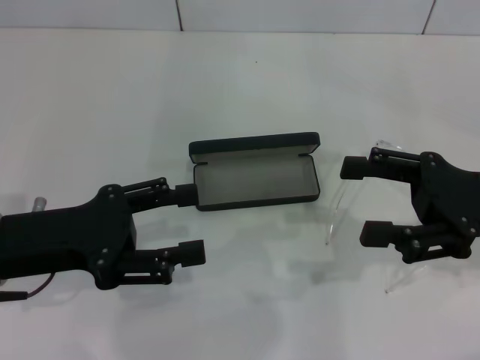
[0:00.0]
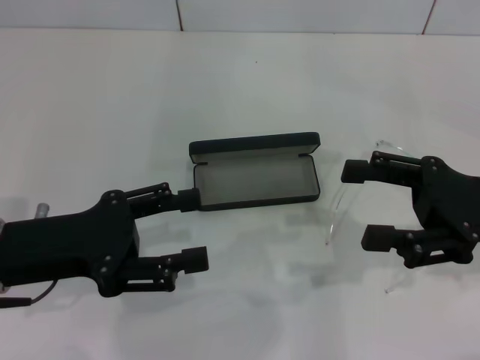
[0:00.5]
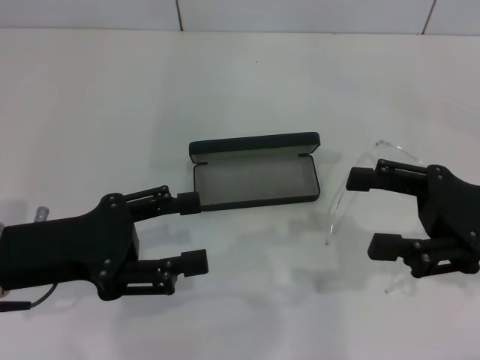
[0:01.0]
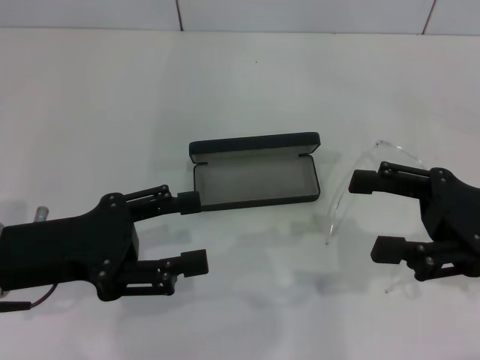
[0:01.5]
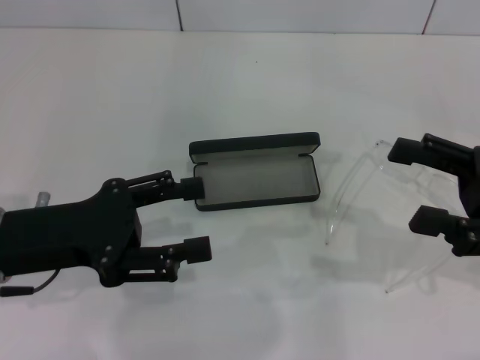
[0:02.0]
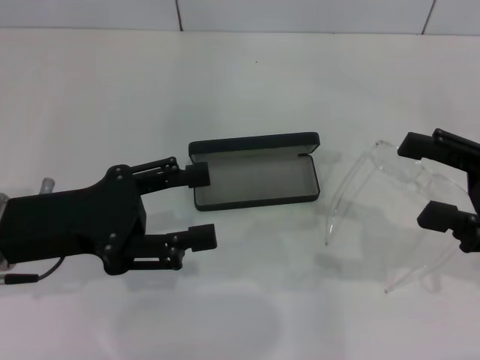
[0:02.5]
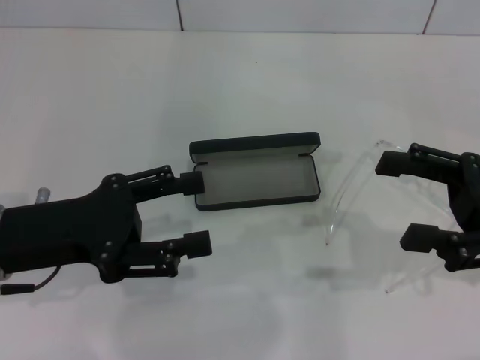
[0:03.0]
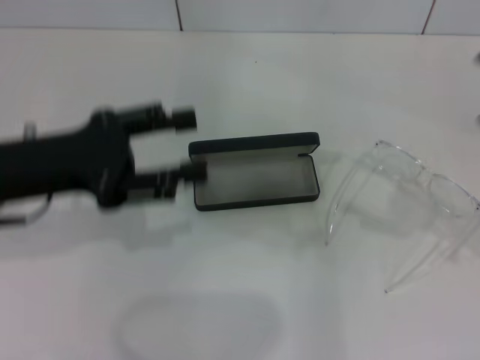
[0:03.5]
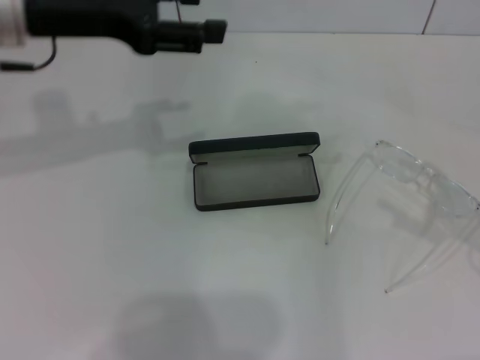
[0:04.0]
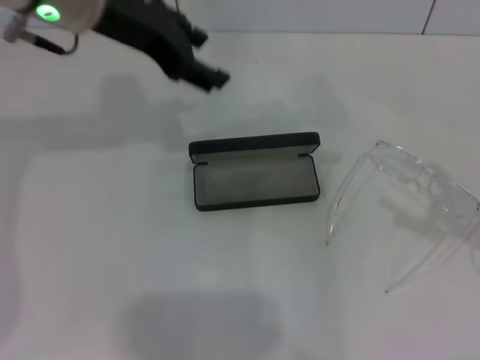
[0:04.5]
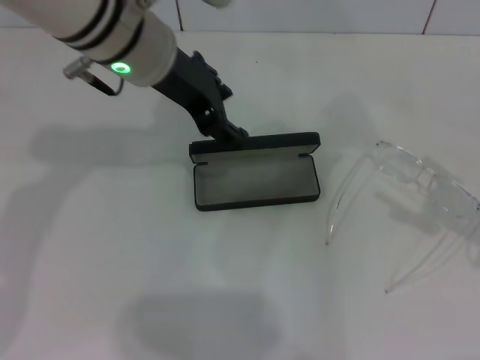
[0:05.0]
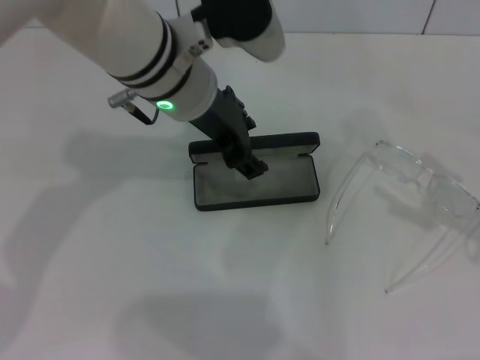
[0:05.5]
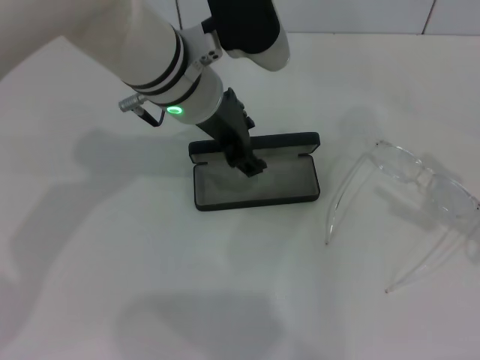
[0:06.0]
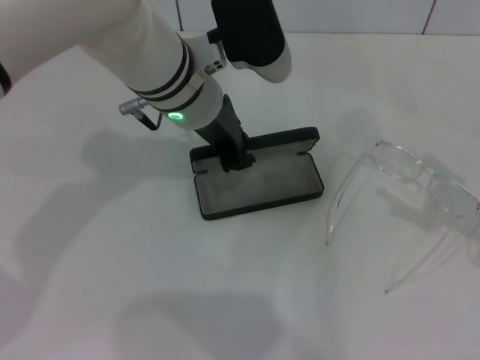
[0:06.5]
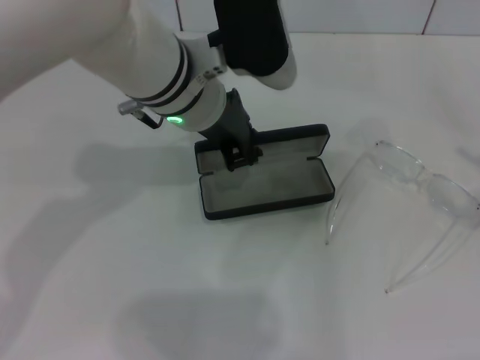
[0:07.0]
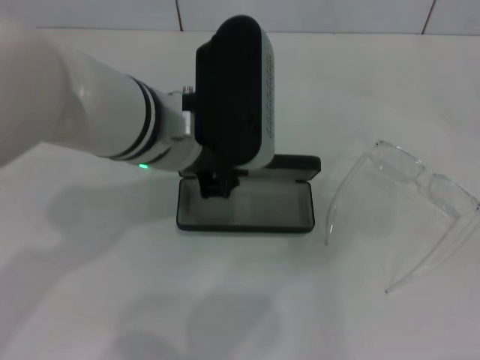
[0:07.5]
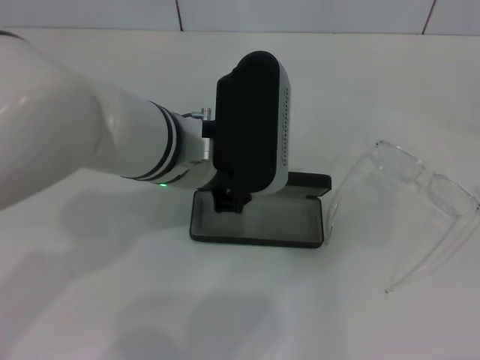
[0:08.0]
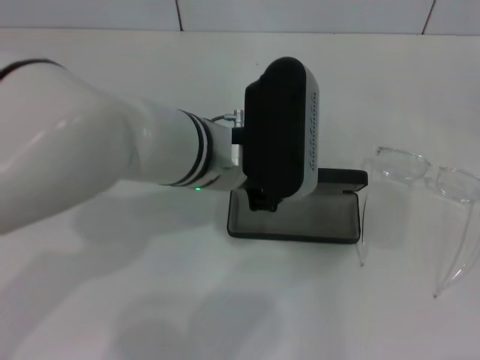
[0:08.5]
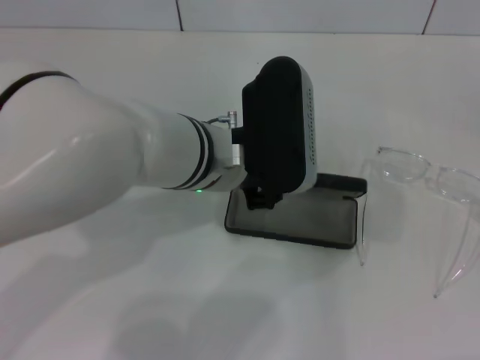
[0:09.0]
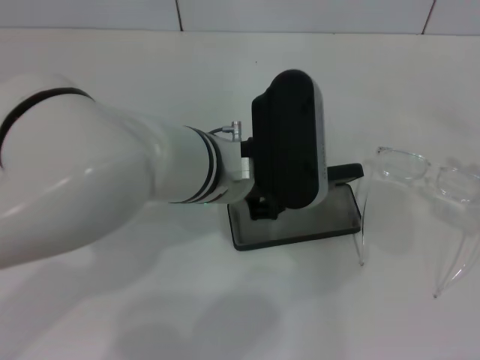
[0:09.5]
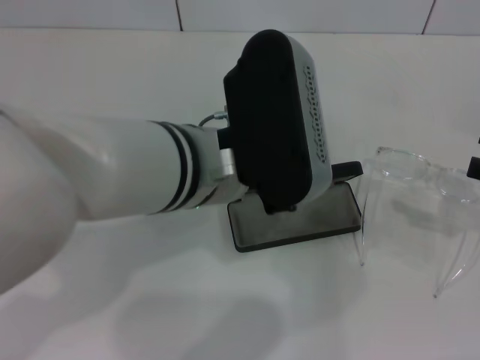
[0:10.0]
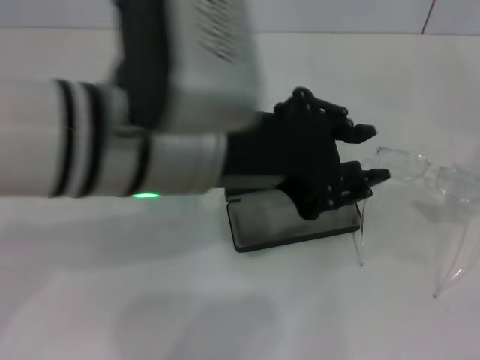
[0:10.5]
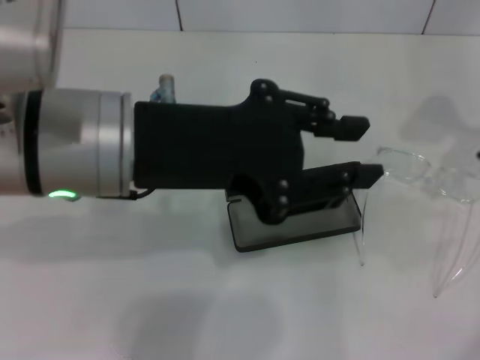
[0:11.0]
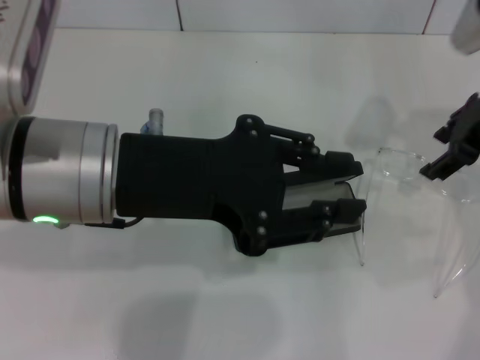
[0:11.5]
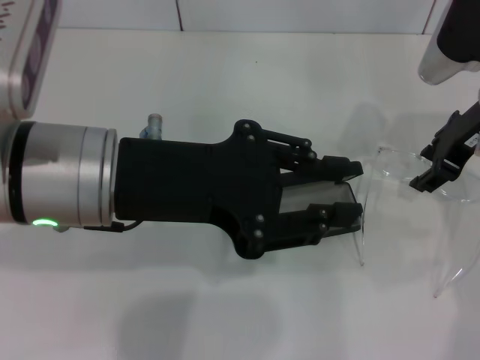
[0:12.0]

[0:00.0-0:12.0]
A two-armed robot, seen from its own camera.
Step, 0:00.0 to 0:06.5: Grab the glasses case with your left hand.
Step, 0:07.0 to 0:09.5: Place the glasses case in the center of the table with your left hand.
0:00.0 to 0:02.0: There are only small adjustments of the grippers.
0:02.0 to 0:04.0: The left gripper goes roughly 15 cm forward and upward. The right gripper is displaced to the right by some 5 cm.
0:04.0 to 0:06.0: The left gripper goes some 15 cm to the right and downward.
0:06.0 to 0:08.0: The left gripper heads backward, covering roughly 5 cm, and closes its fingers, while the right gripper travels backward and to the right by roughly 10 cm.
0:08.0 to 0:10.0: The right gripper heads forward, covering roughly 10 cm.
0:10.0 to 0:12.0: The right gripper heads to the left and forward, covering approximately 20 cm, while the left gripper is displaced to the left by about 10 cm.

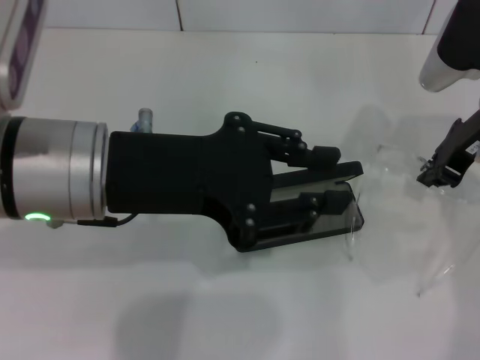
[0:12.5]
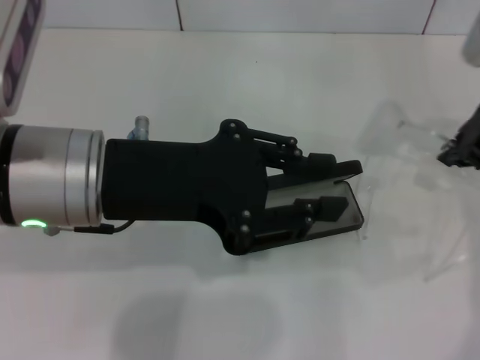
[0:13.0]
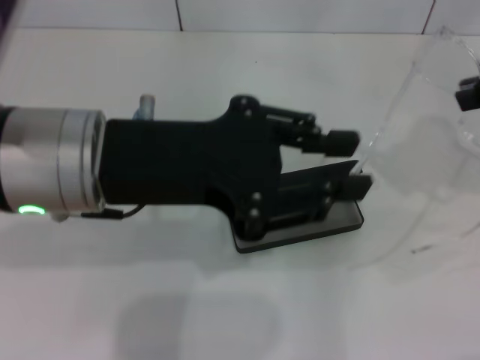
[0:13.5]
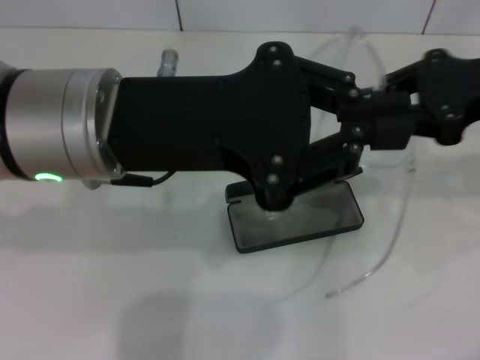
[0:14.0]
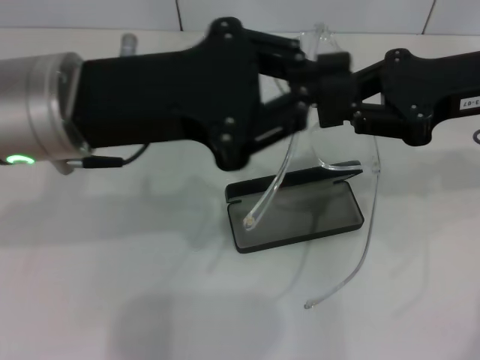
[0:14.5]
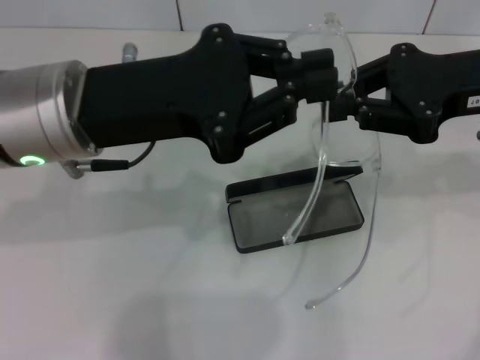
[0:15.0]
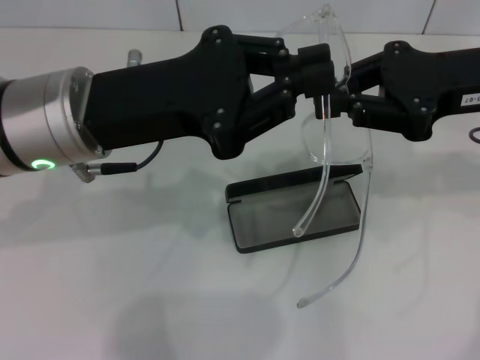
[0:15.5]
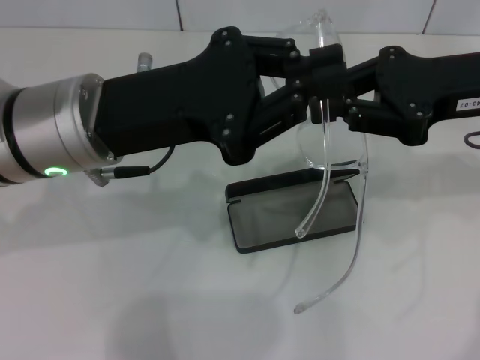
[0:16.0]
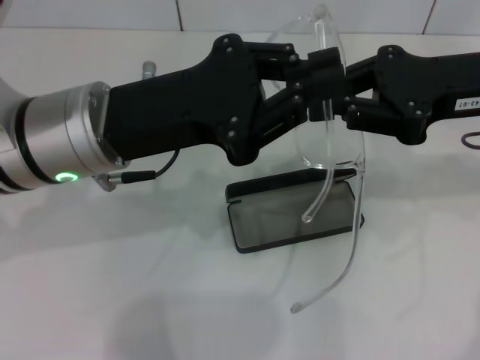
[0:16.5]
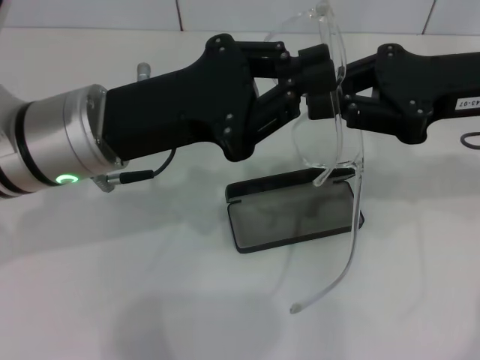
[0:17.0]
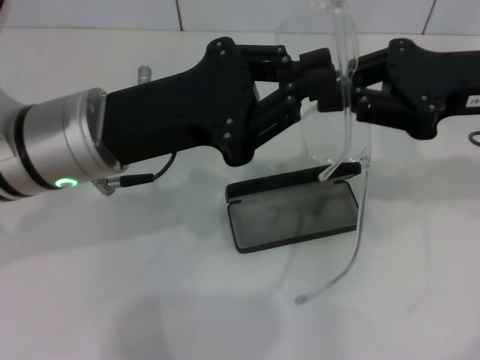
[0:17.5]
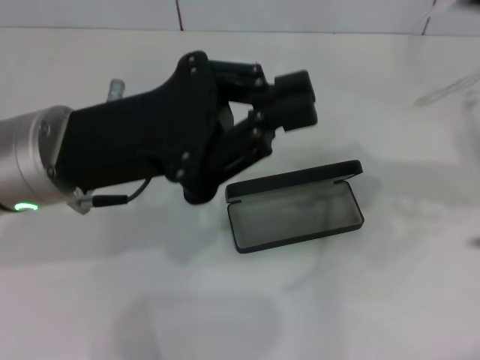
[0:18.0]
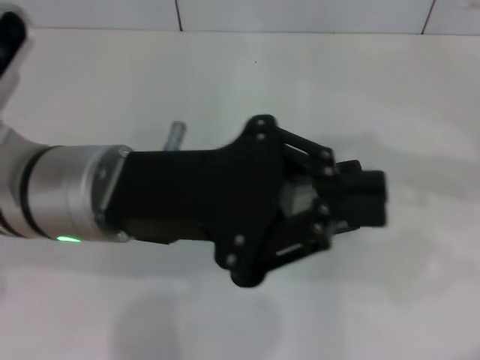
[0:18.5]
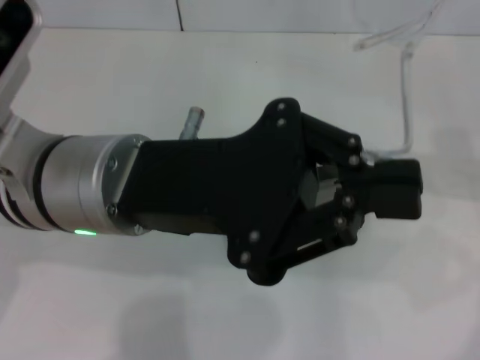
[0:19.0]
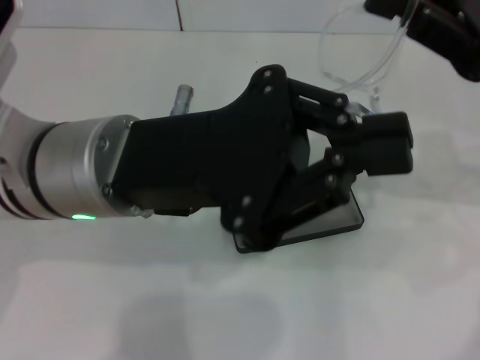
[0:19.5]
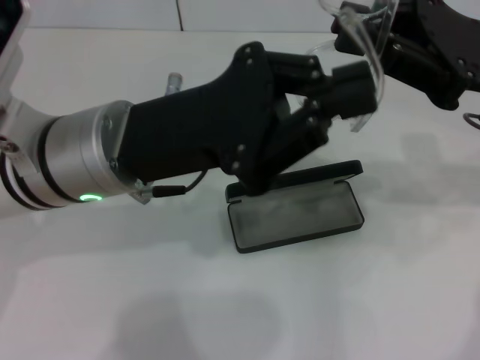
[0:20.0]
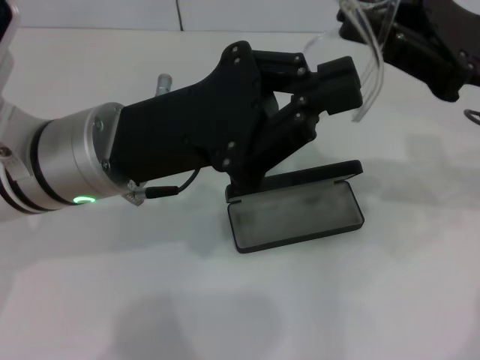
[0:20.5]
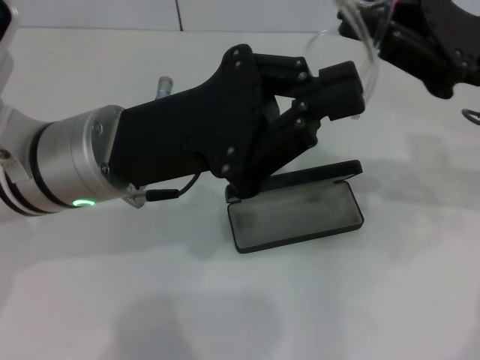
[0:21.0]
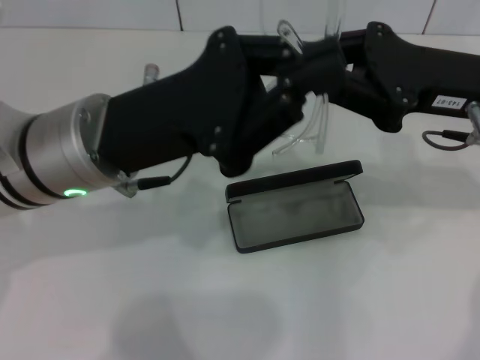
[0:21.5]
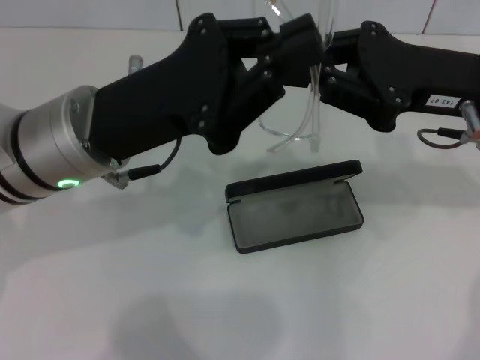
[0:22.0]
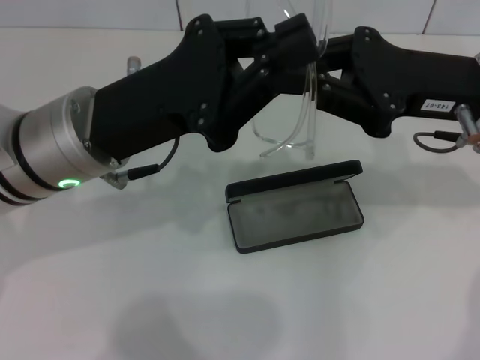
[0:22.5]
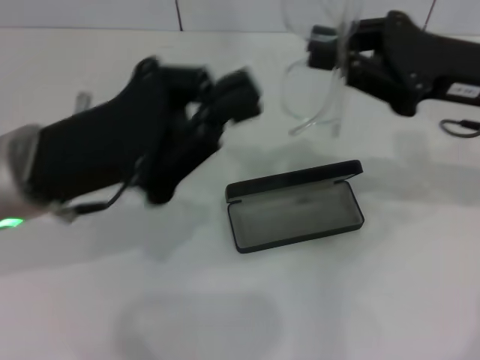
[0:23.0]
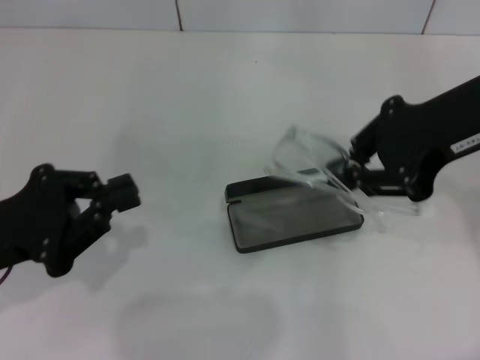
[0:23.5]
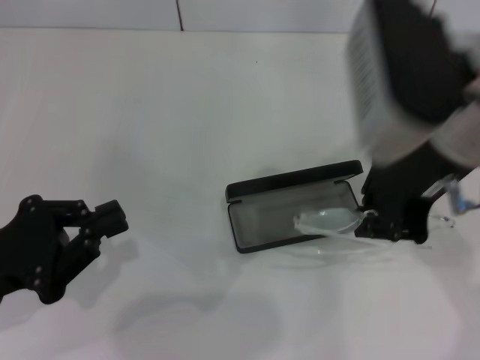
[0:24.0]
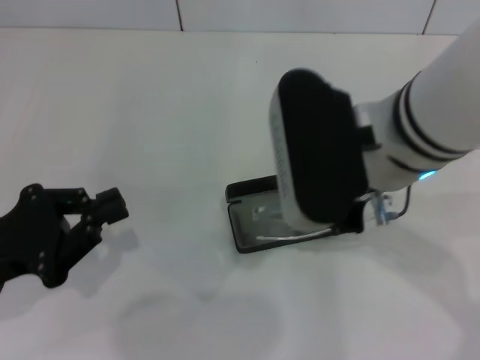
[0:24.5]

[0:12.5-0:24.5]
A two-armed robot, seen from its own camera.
Step, 0:13.0 to 0:22.5: Lift the glasses with your right hand.
0:12.5 to 0:14.5: The left gripper closes up, while the right gripper moves upward and backward, roughly 10 cm.
0:14.5 to 0:16.5: The left gripper ends up about 5 cm from where it was.
0:16.5 to 0:18.5: The right gripper shifts roughly 5 cm to the right.
0:18.5 to 0:20.5: The right gripper heads to the left, covering roughly 5 cm.
0:22.5 to 0:24.5: The left gripper heads to the left, backward and downward, covering about 20 cm. Meanwhile the right gripper goes roughly 10 cm to the left.

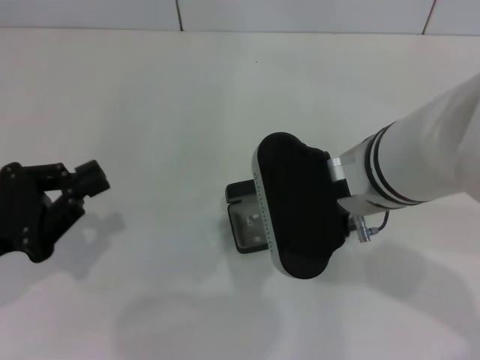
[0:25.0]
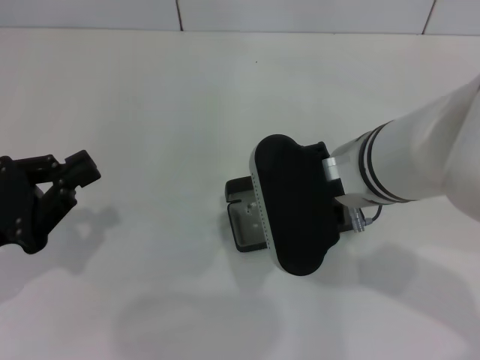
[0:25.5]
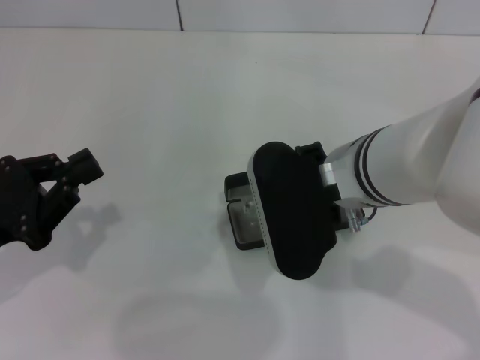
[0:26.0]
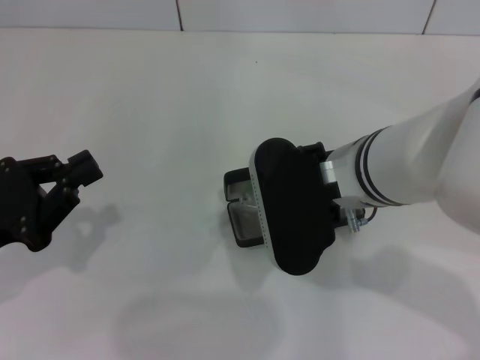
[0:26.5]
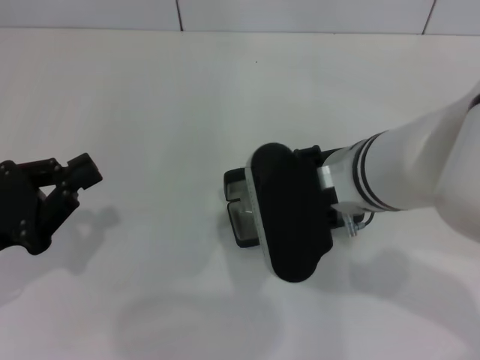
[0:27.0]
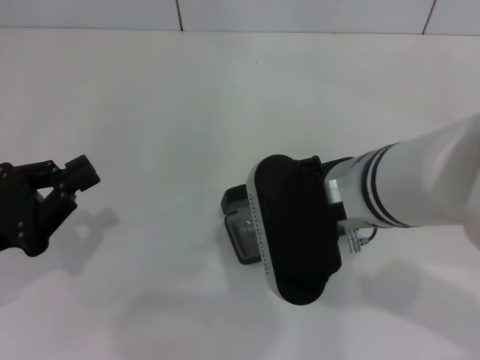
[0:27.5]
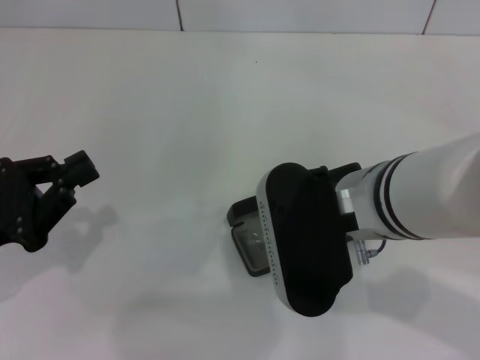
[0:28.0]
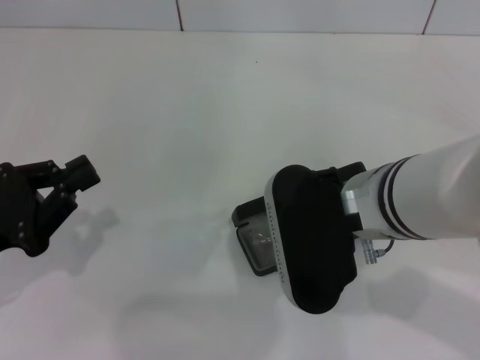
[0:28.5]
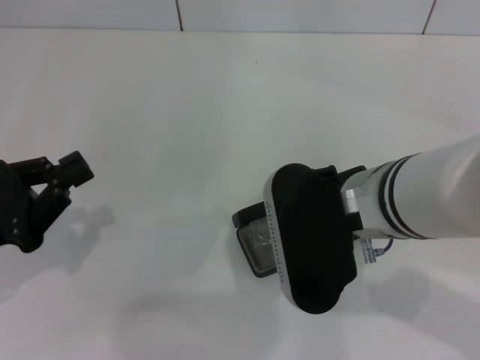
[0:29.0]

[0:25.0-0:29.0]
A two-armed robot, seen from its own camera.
0:25.0 to 0:29.0: There are only small adjustments of the grippers.
